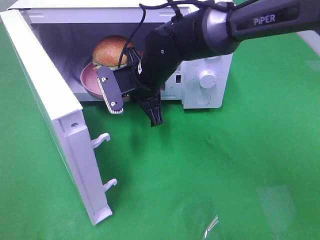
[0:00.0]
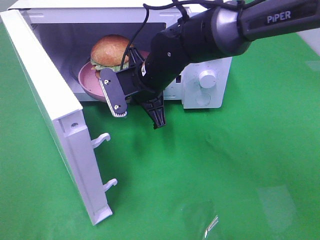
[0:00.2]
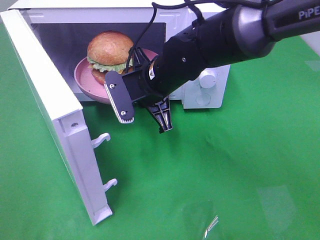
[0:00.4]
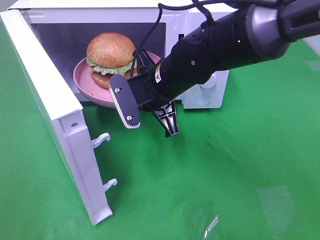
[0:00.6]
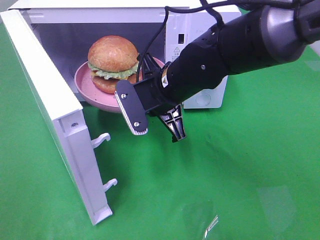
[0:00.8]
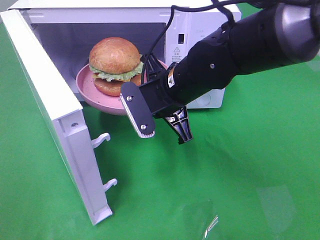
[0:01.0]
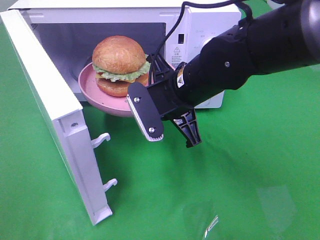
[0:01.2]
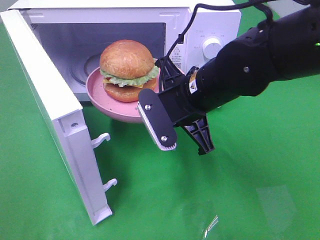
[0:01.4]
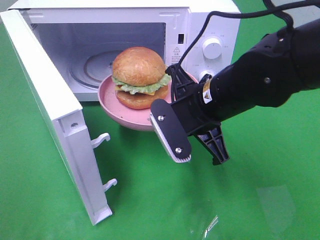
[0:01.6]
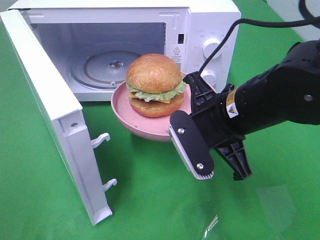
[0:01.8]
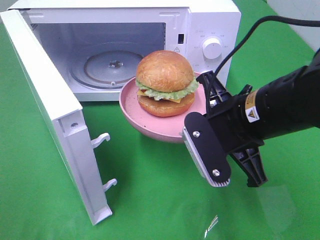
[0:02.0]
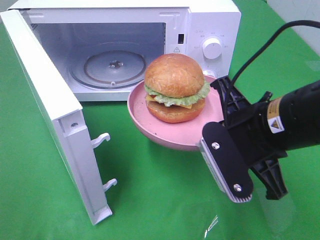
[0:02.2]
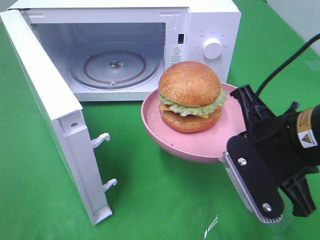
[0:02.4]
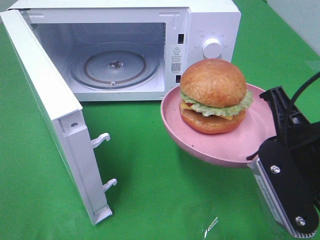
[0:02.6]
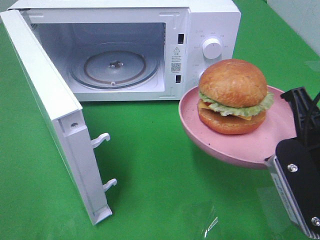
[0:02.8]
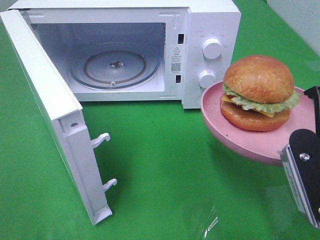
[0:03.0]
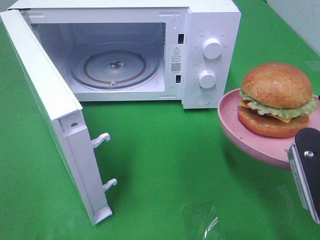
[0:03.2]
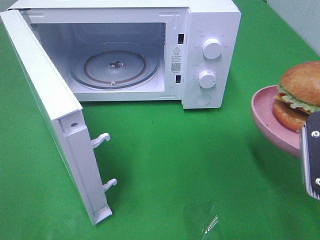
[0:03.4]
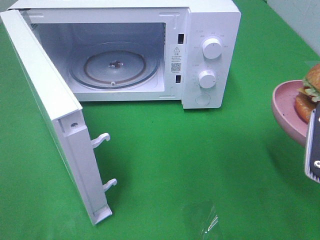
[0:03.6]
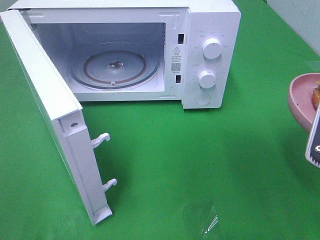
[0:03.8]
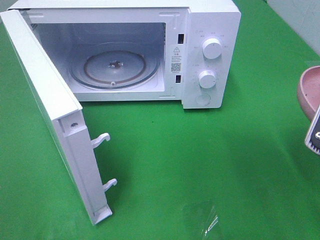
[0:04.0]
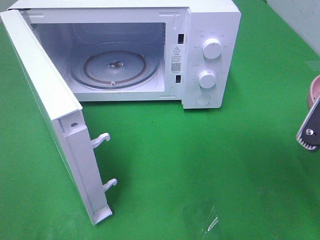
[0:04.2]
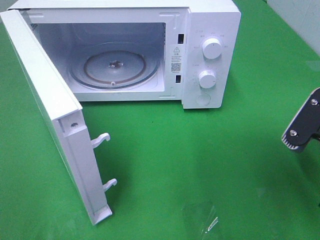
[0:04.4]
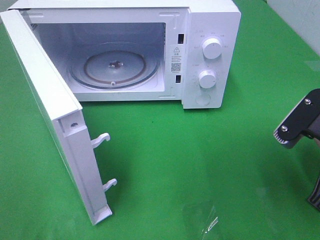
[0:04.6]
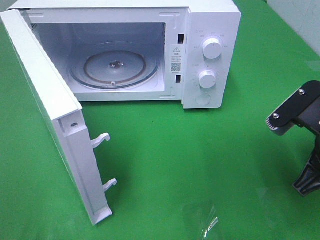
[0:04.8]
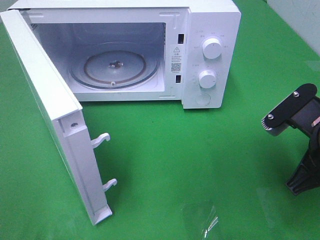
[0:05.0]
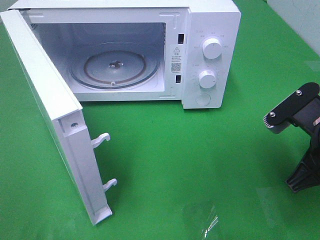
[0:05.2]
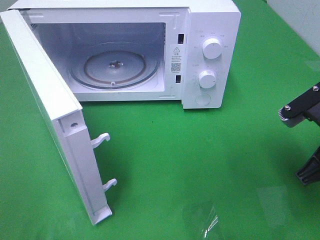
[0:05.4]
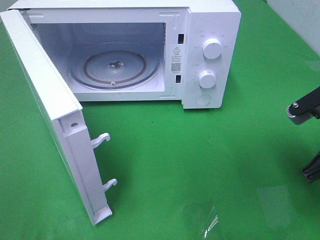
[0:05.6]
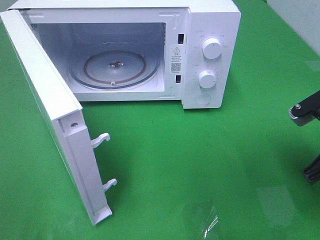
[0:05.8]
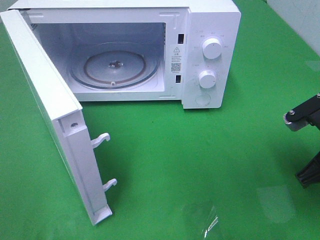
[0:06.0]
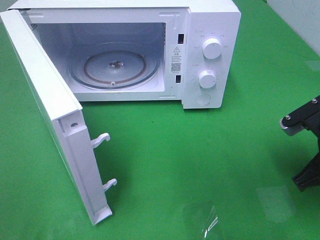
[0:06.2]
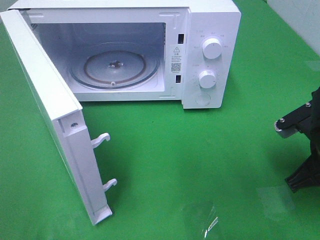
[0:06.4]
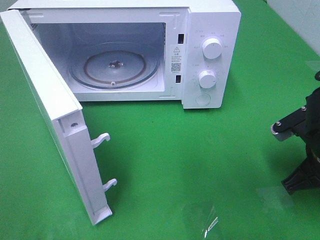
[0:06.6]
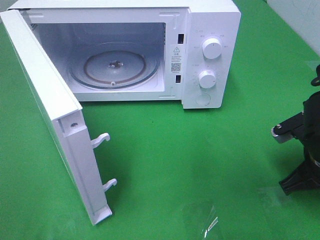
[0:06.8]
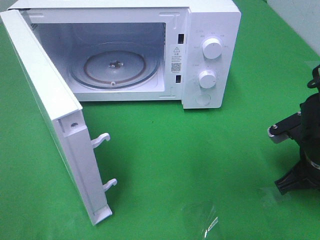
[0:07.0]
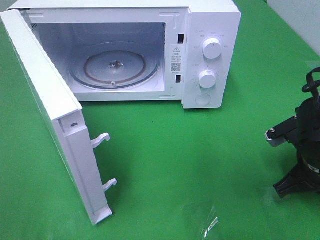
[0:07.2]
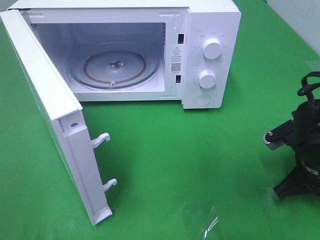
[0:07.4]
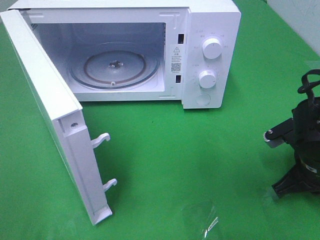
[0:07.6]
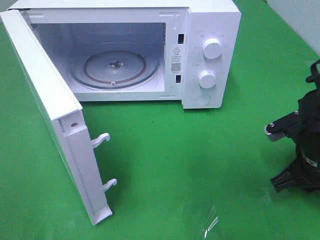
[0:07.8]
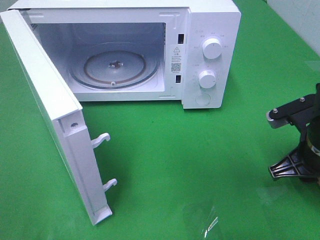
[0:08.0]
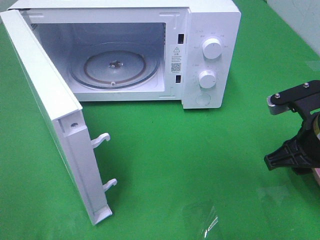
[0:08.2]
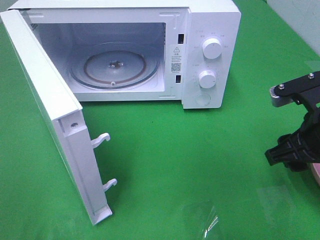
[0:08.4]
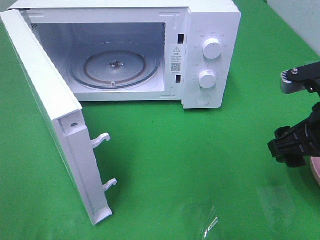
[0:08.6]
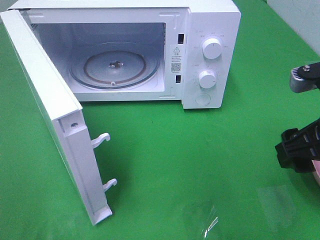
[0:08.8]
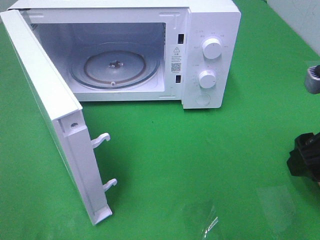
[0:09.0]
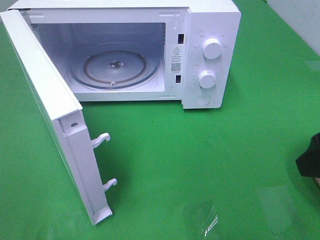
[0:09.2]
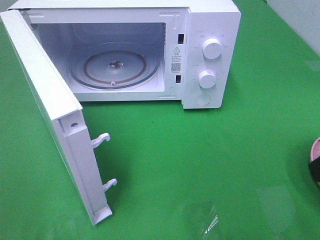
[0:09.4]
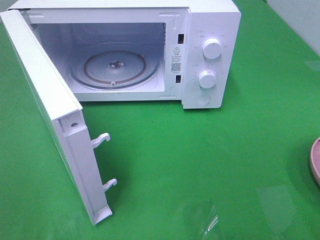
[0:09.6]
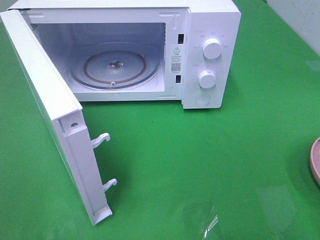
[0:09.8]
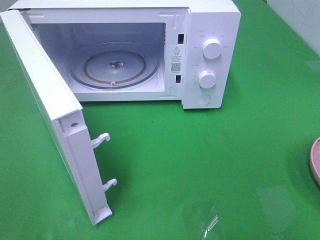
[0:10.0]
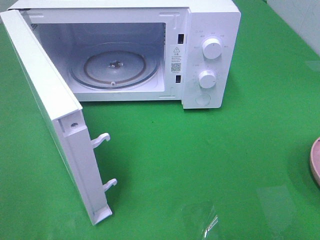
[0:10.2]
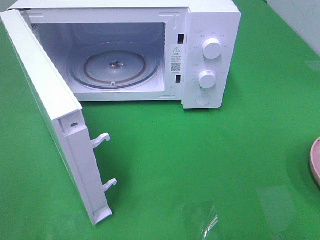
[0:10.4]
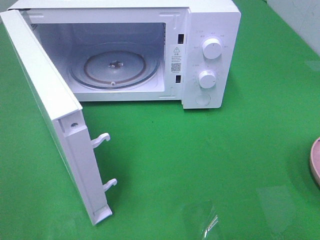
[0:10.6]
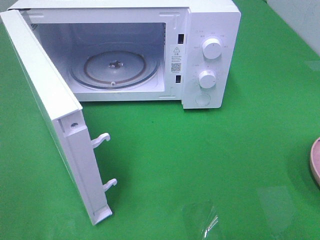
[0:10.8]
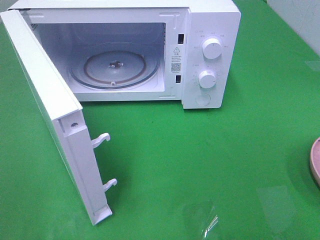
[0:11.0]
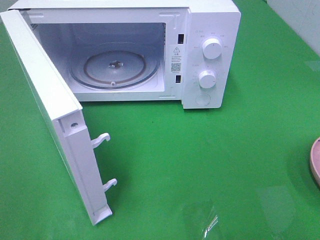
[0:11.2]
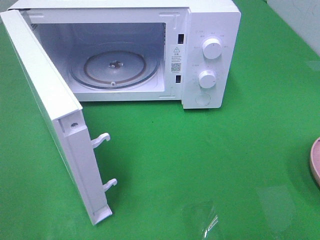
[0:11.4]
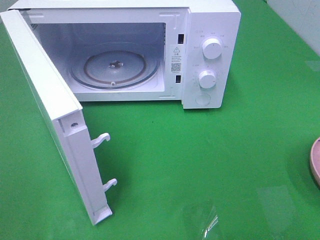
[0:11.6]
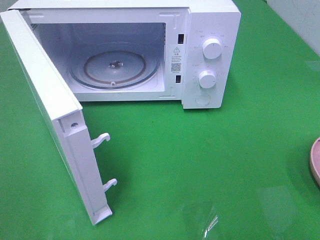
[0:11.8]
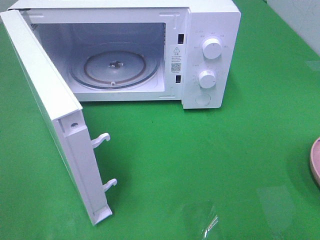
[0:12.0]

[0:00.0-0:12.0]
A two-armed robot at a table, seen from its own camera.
Task of the whole recording: Heat the burger.
Step, 0:00.0 to 0:08.0: Right hand: place the plate on the table.
0:00.0 to 0:01.6: The right gripper goes roughly 15 cm backward and to the right.
0:01.6 to 0:03.0: The right gripper travels to the right and backward by about 15 cm.
0:04.4 to 0:06.0: The right gripper heads forward, covering approximately 5 cm.
0:06.0 to 0:07.6: The right gripper shifts roughly 5 cm downward.
0:07.6 to 0:09.0: The right gripper shifts some 15 cm upward and backward, and opens.
0:09.0 to 0:10.4: The right gripper moves backward and to the right, roughly 15 cm.

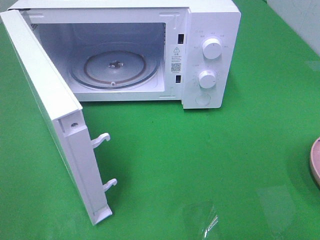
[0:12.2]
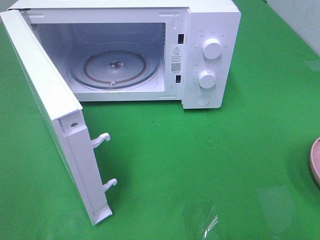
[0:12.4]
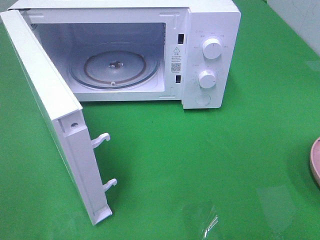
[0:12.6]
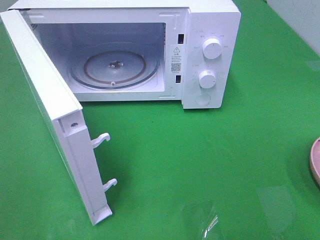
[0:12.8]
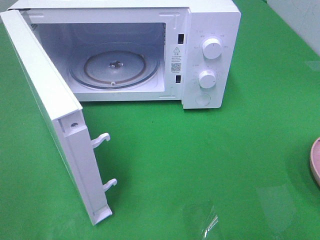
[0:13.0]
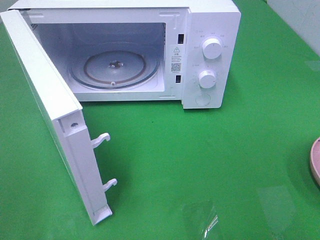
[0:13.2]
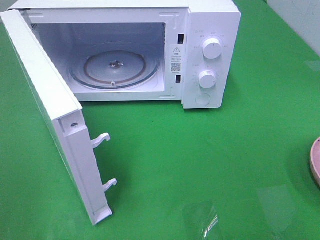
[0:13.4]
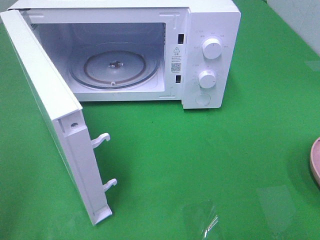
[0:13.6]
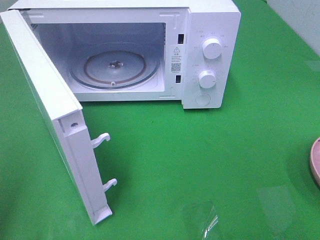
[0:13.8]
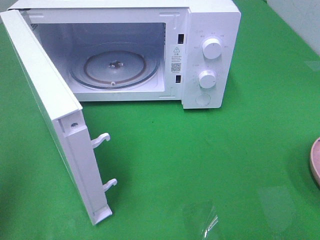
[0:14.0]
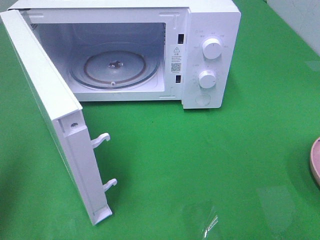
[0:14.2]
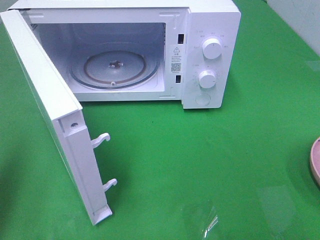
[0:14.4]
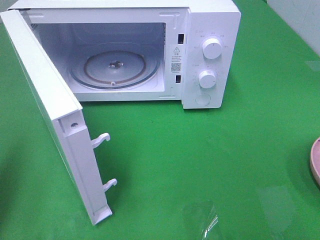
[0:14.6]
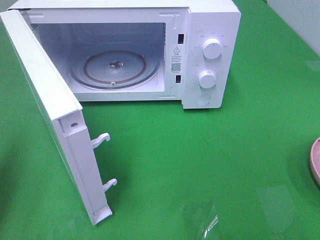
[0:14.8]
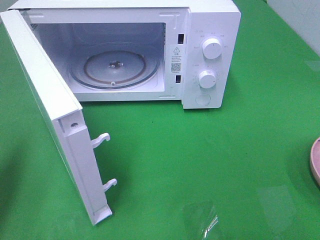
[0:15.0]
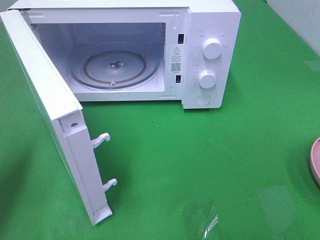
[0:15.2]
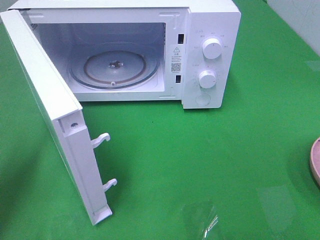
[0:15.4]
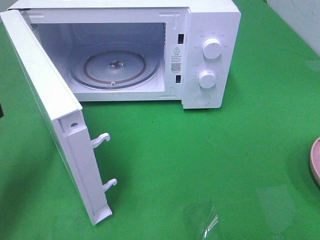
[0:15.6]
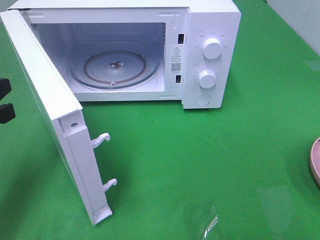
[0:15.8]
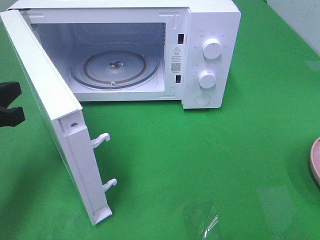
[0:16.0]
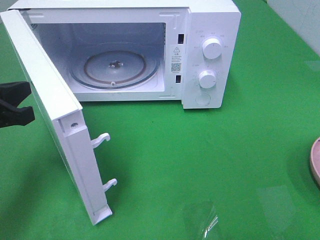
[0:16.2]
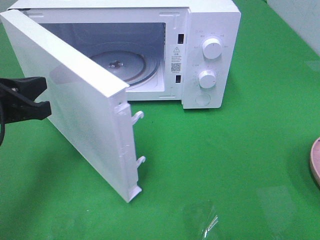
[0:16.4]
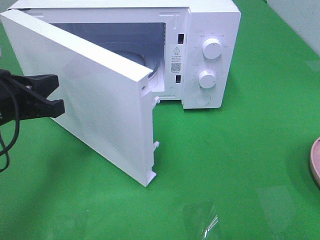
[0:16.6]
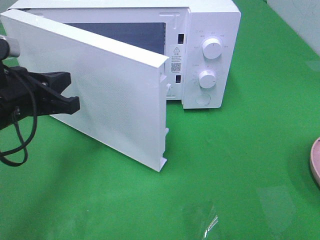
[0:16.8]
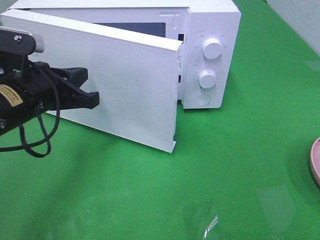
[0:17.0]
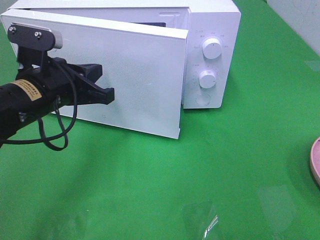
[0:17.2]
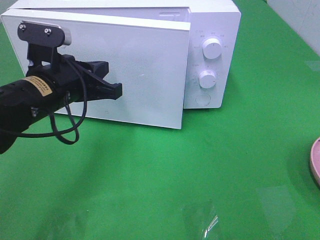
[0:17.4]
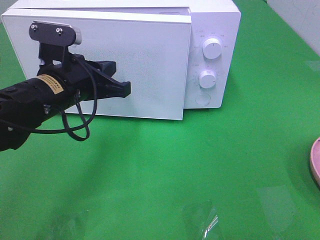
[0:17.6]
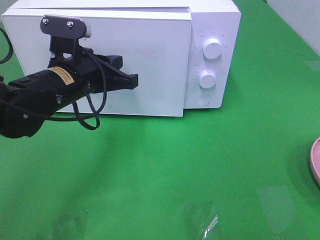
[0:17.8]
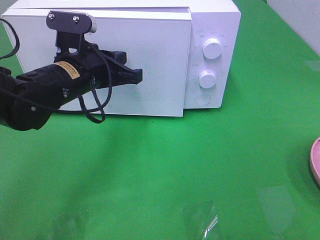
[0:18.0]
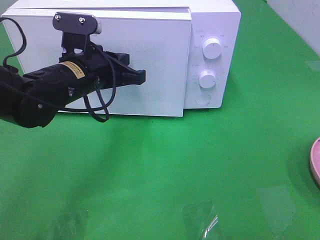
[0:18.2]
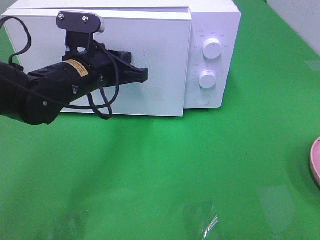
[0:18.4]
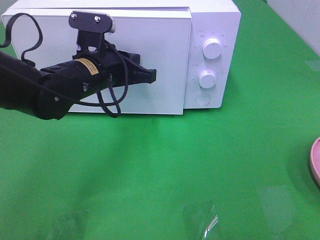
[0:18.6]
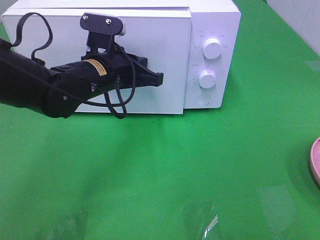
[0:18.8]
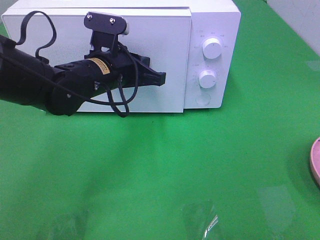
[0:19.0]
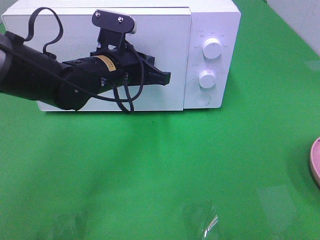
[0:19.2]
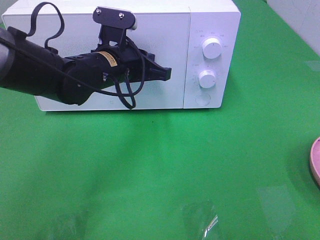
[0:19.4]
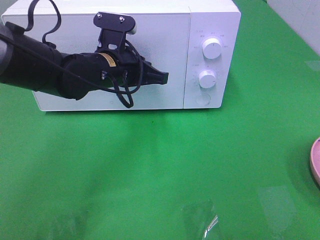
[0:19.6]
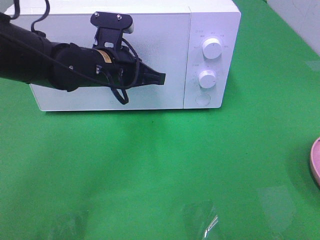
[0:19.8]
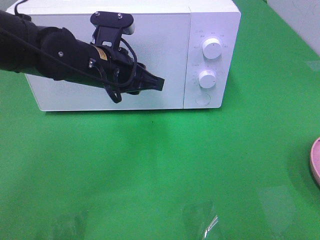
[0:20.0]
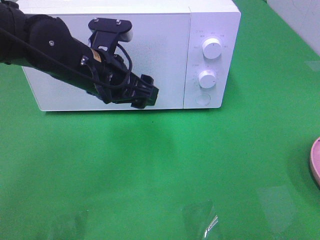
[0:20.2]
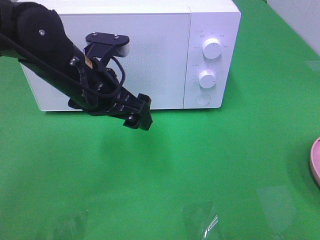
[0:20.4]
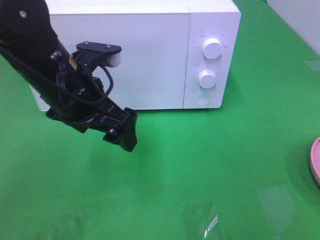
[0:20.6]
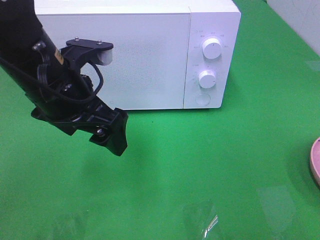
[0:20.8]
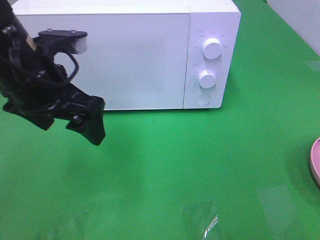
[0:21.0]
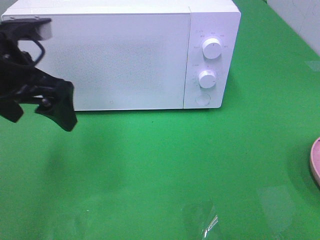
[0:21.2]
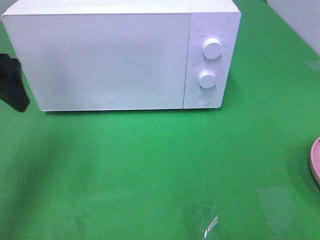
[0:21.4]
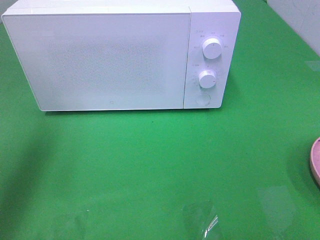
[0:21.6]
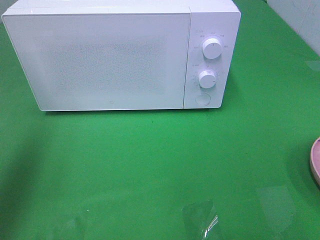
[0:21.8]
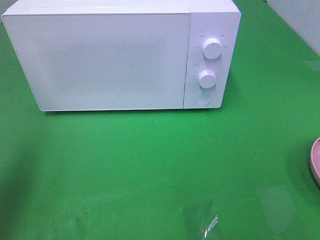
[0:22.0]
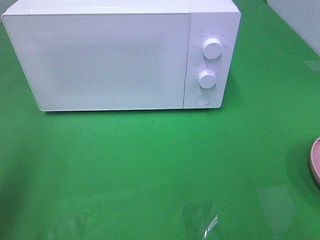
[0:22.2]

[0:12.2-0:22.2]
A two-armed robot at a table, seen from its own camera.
Task of the whole recording: Heat the burger.
Step, 0:12.2 to 0:20.0: Left hand: close the microwave door.
0:13.6 to 0:15.0: The left gripper moves forward and downward, approximately 15 cm, and closes.
0:15.0 to 0:16.4: The left gripper travels to the right and forward by about 10 cm.
0:16.4 to 0:18.0: The left gripper goes approximately 15 cm to the right and forward.
0:18.0 to 0:19.4: The left gripper ends up roughly 5 cm from where it was.
0:19.4 to 0:20.8: The left gripper shifts roughly 15 cm backward, upward and to the left, and opens its fingers.
0:20.8 to 0:22.2: The left gripper is displaced to the left, backward and upward by about 25 cm.
